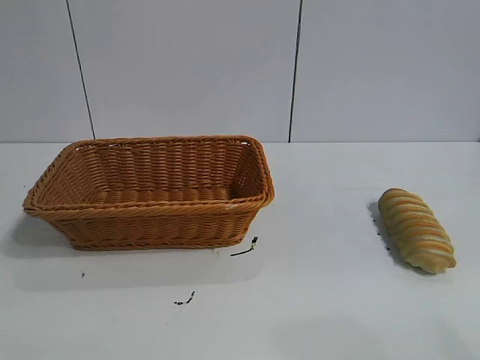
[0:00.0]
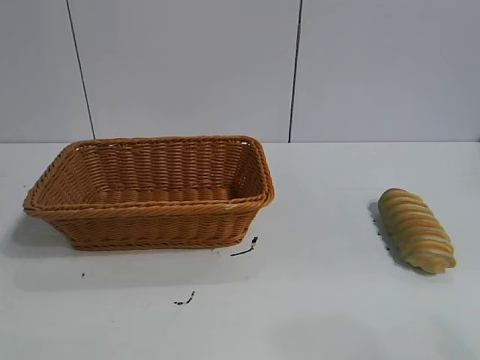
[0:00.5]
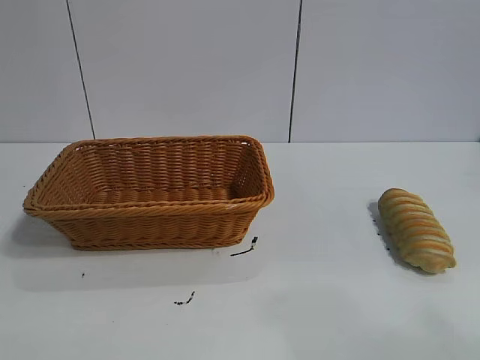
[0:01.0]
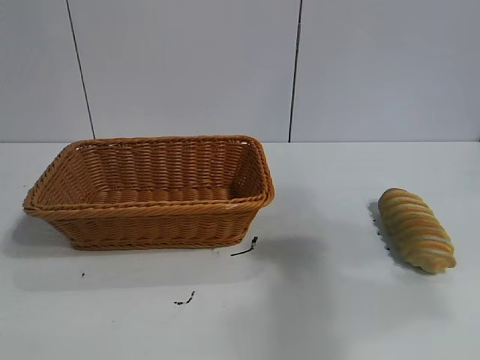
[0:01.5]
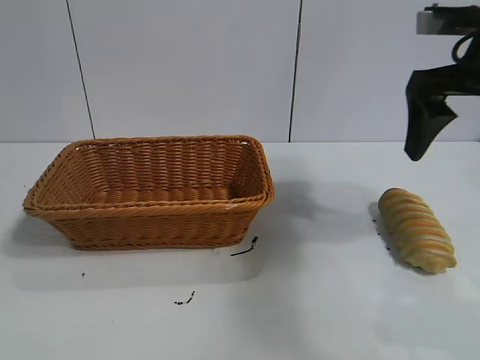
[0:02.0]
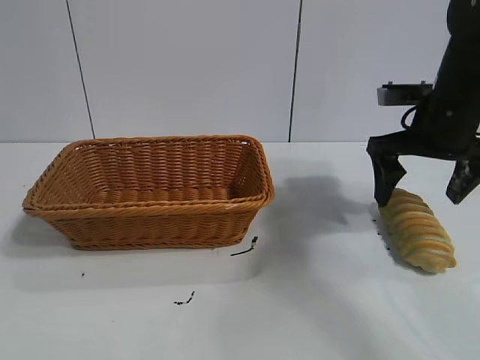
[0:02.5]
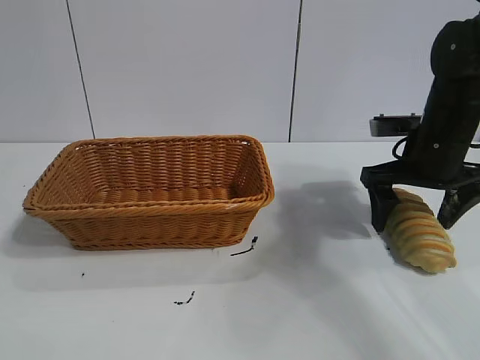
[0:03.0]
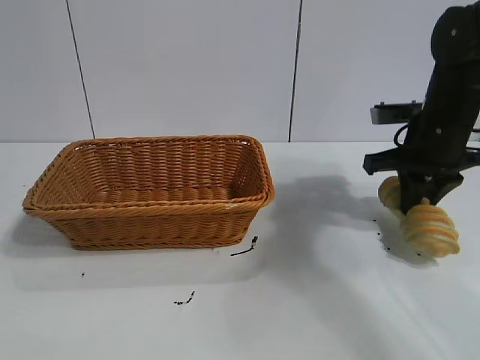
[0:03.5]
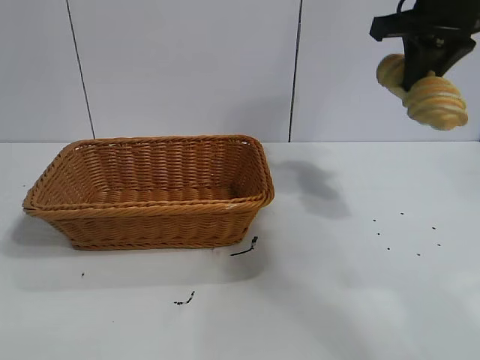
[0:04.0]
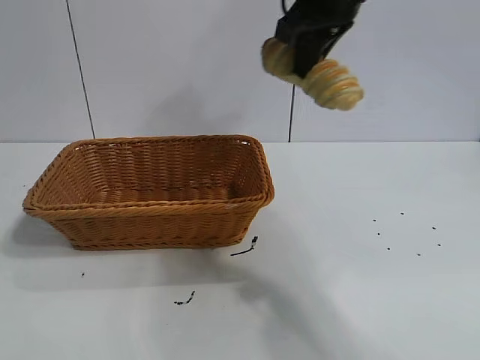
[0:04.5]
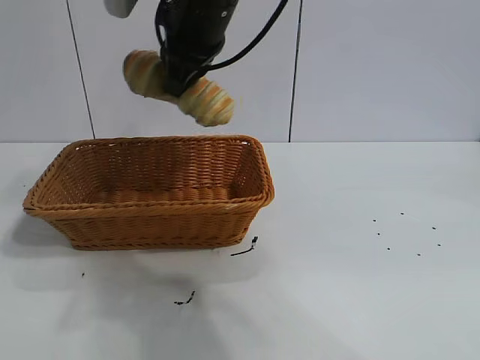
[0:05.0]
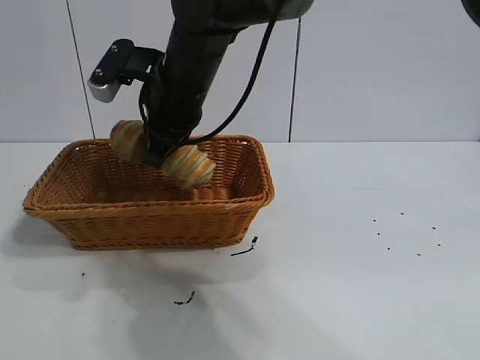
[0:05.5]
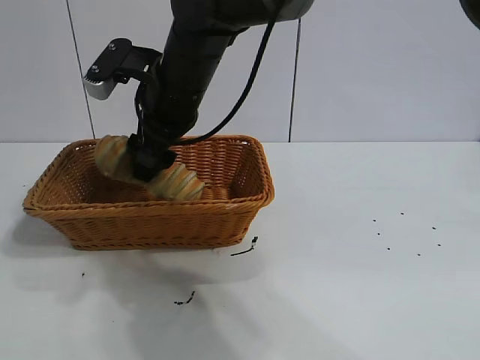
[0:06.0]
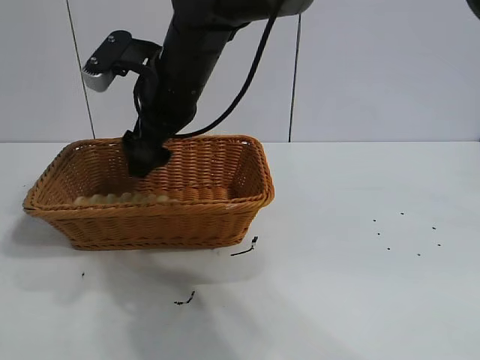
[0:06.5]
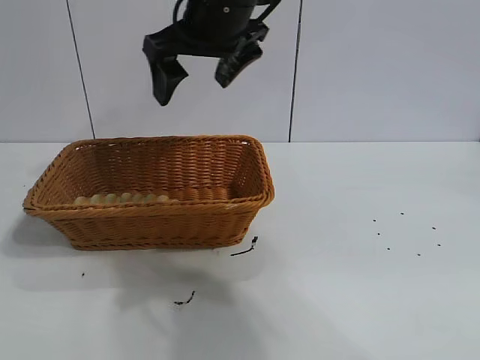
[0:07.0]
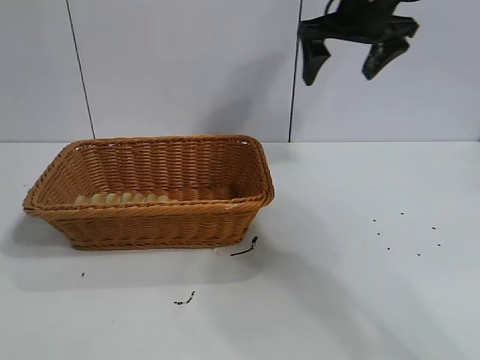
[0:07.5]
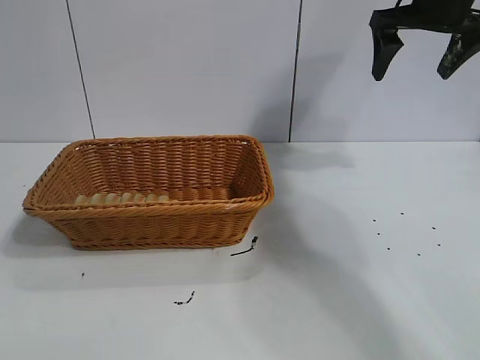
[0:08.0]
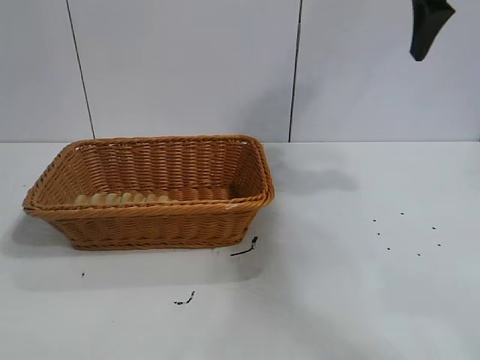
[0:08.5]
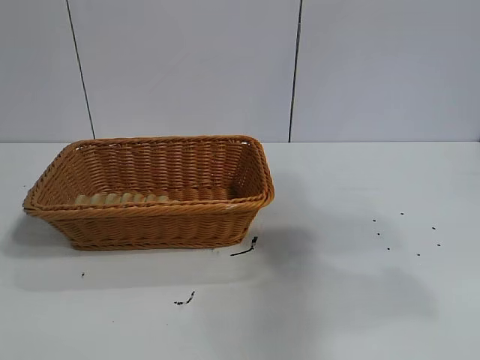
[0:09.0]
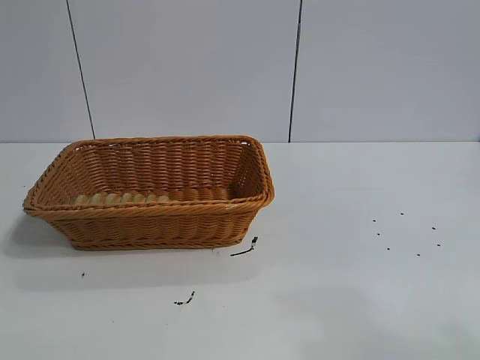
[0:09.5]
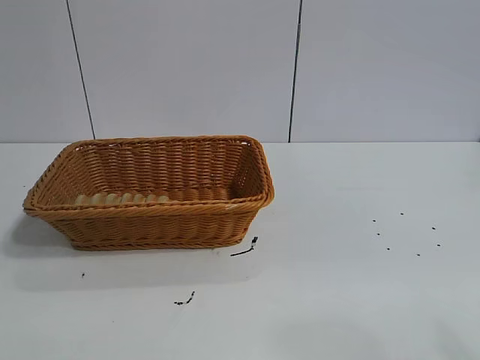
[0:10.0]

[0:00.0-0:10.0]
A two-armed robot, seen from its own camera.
Task of the whole recording: pick up the long bread and put it into the basket.
Step, 0:02.0 to 0:03.0: Grasp the long bread with right gripper.
Step, 0:04.0 to 0:06.5: Place the long bread in the basket with right gripper.
